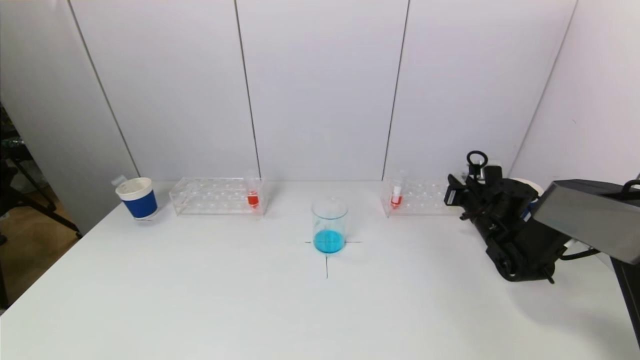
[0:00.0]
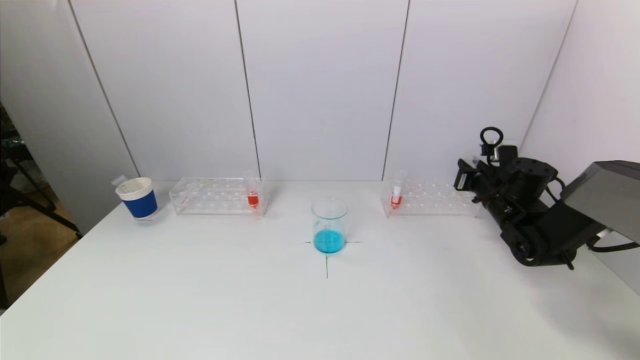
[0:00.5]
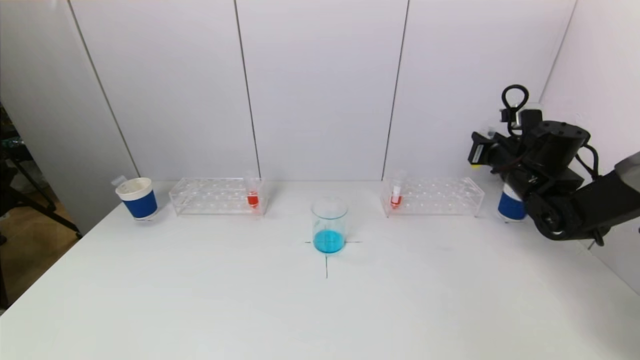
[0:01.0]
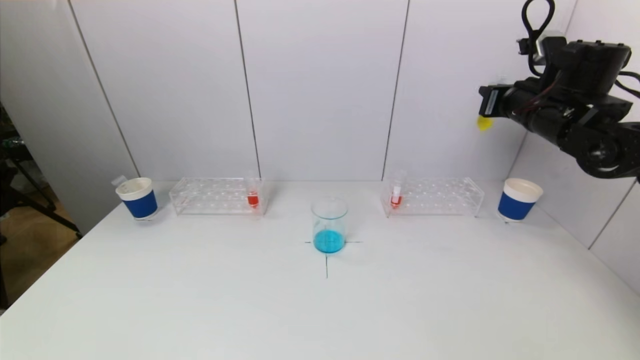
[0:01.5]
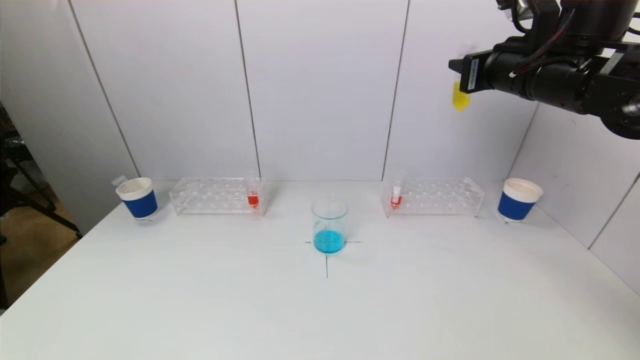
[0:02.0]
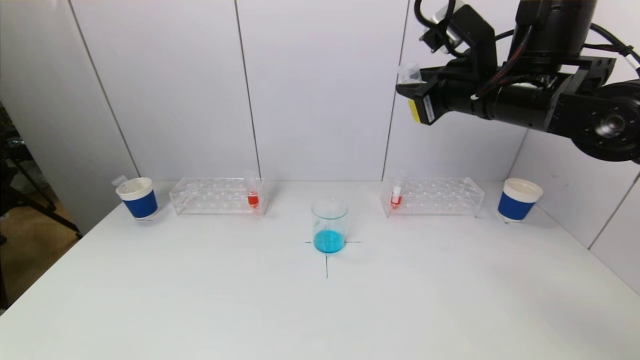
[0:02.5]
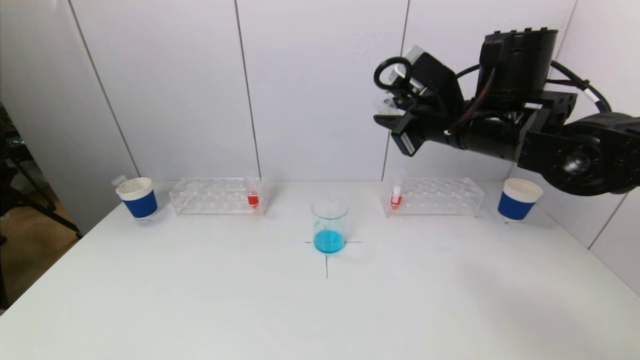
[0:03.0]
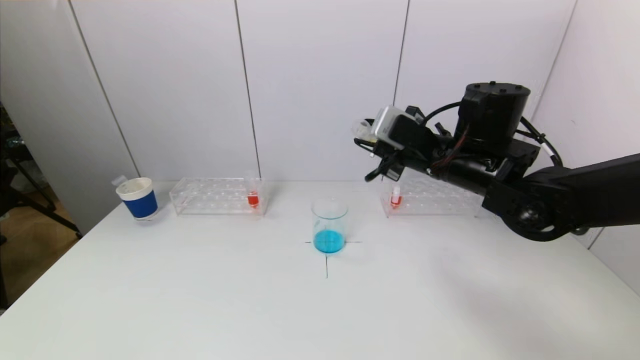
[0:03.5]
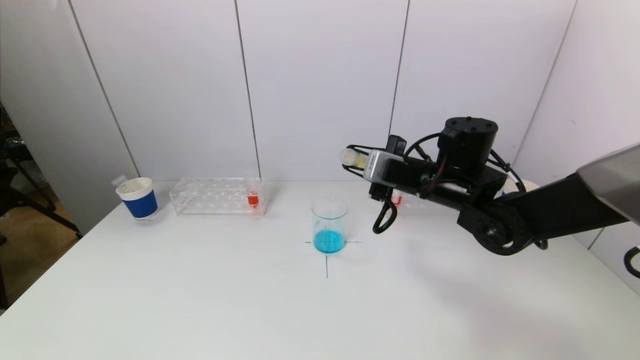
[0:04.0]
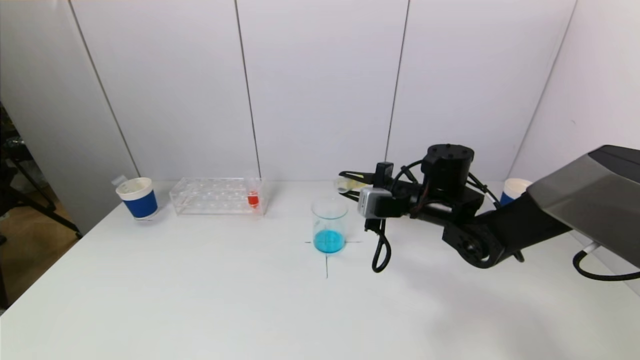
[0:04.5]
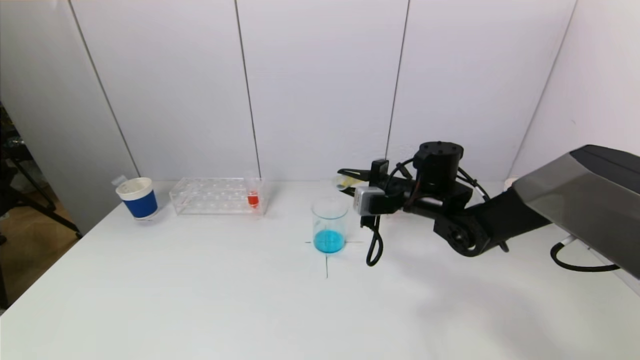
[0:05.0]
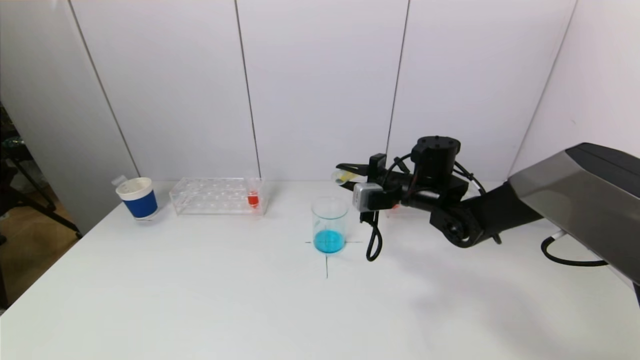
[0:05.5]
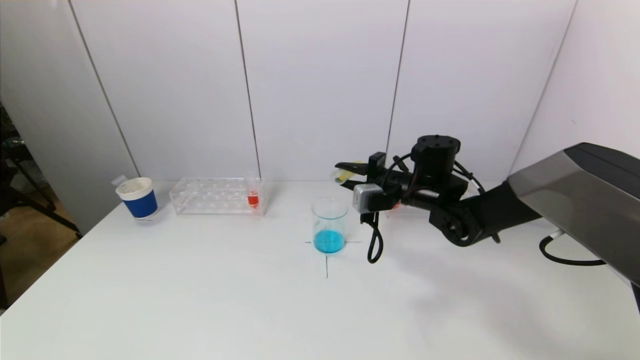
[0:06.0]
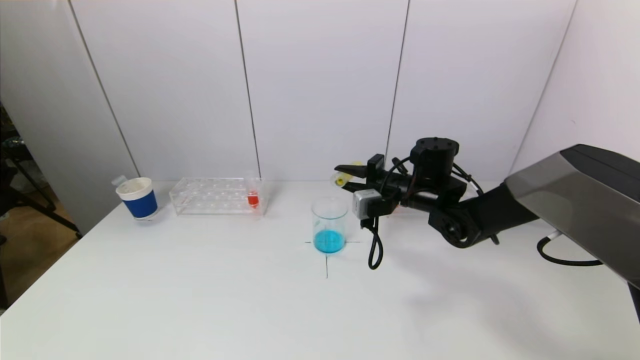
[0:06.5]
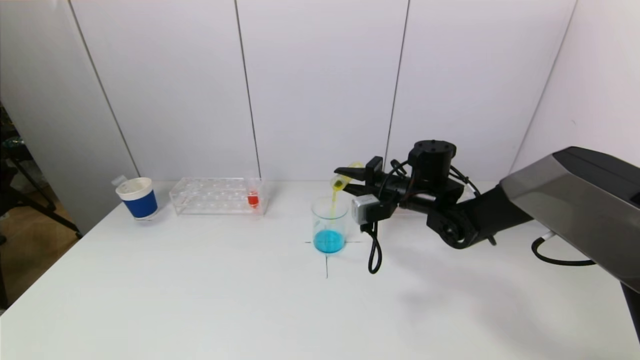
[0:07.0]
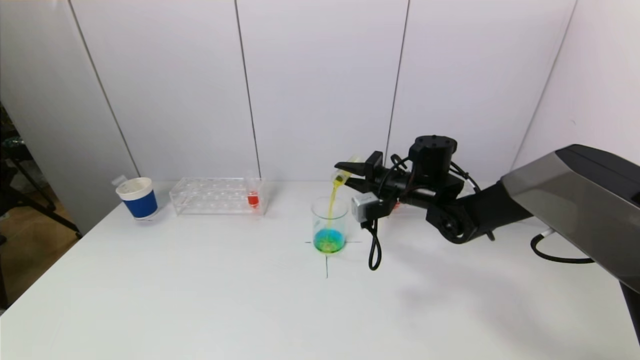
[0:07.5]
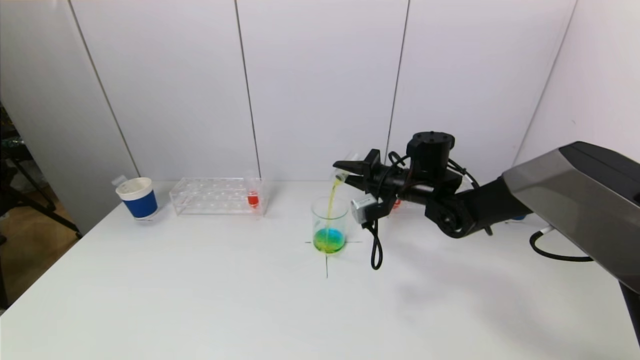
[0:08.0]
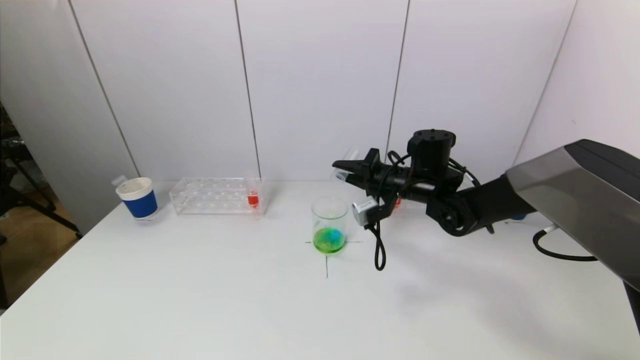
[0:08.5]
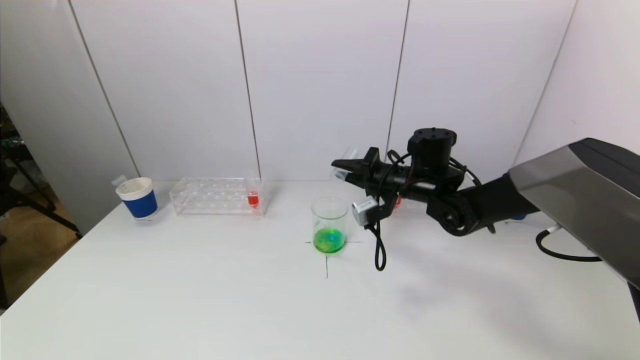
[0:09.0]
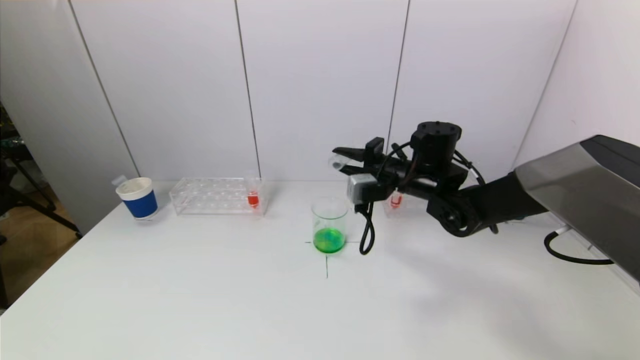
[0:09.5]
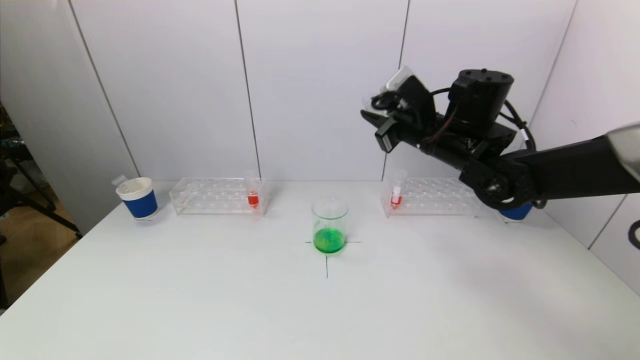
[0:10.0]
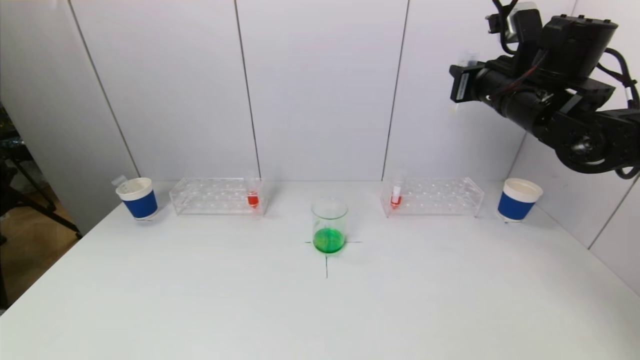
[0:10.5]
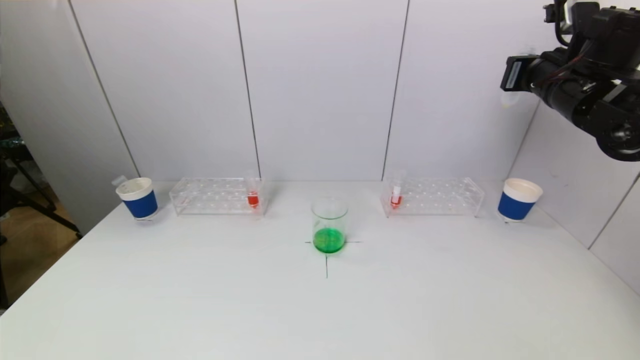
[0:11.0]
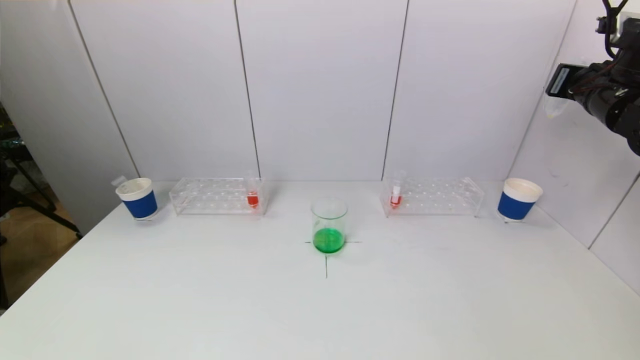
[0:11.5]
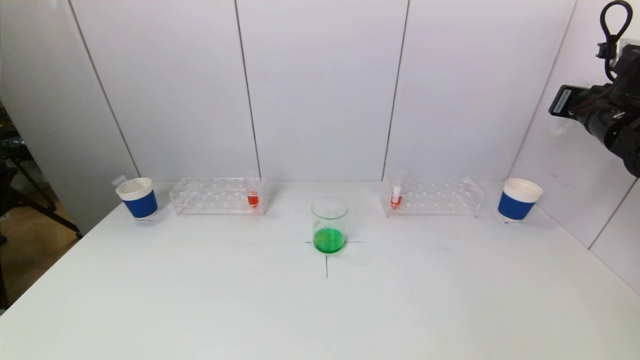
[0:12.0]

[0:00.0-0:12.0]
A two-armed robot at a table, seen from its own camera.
Task of the whole recording: pick up a test tube with pigment on left test tube rack and a test tube with pigment on right test tube rack by grippers and pour them into the beaker.
Step, 0:00.0 to 0:08.5: Pour the yellow reagent into the graduated cylinder with the right gripper.
0:00.0 to 0:02.0: The right gripper moves upward, about 30 cm.
0:02.0 to 0:04.0: The right gripper travels downward and to the left by about 20 cm.
0:04.0 to 0:06.0: The right gripper moves roughly 5 cm.
0:08.0 to 0:10.0: The right gripper shifts roughly 10 cm upward.
0:10.0 to 0:12.0: The right gripper shifts roughly 25 cm to the right.

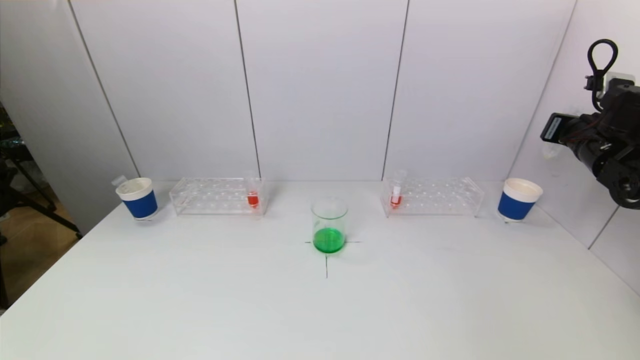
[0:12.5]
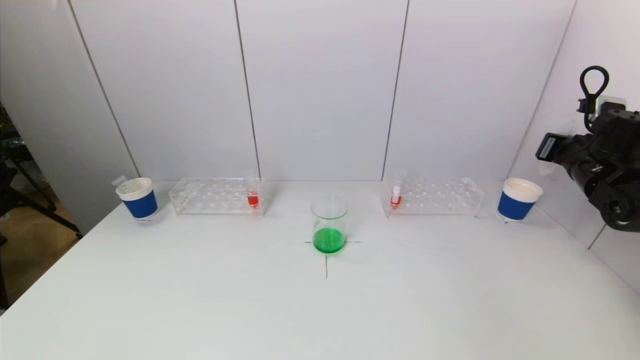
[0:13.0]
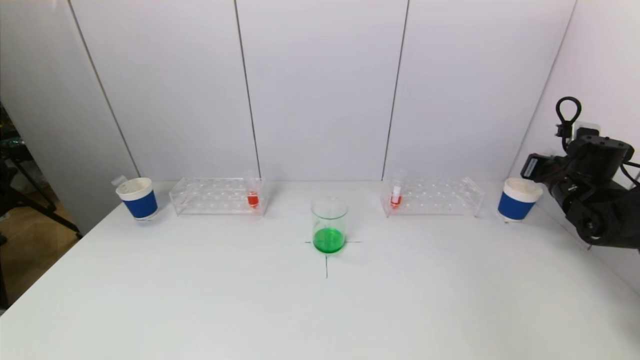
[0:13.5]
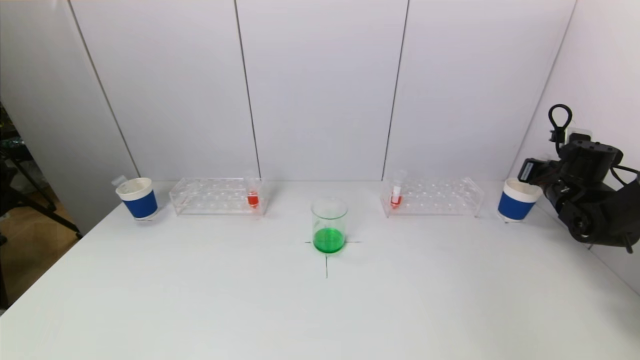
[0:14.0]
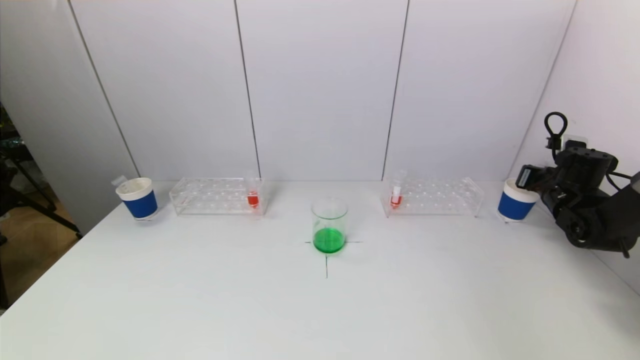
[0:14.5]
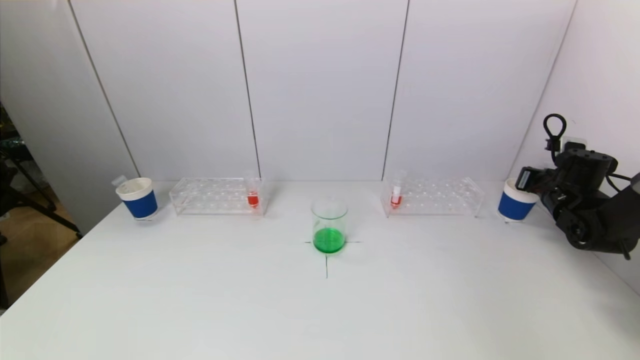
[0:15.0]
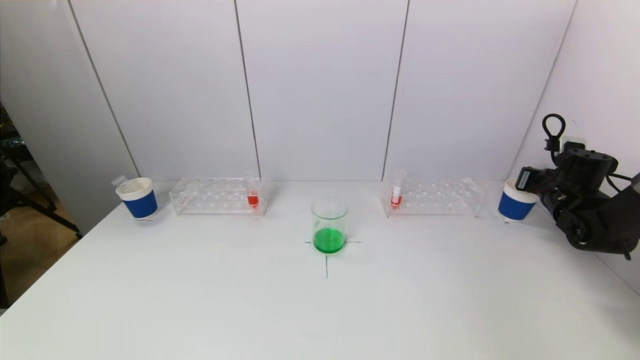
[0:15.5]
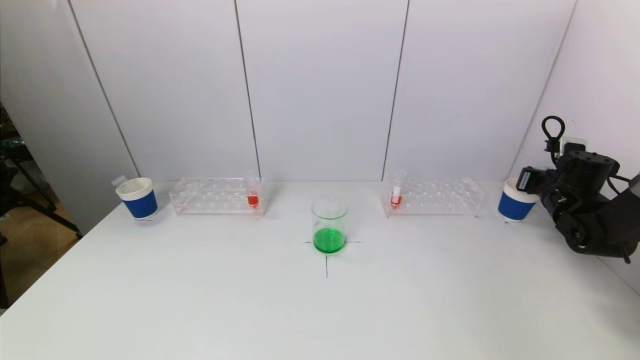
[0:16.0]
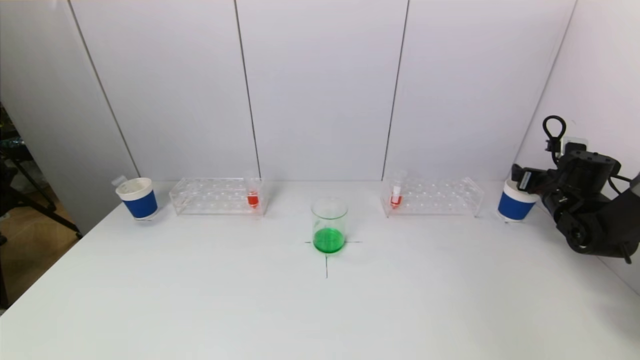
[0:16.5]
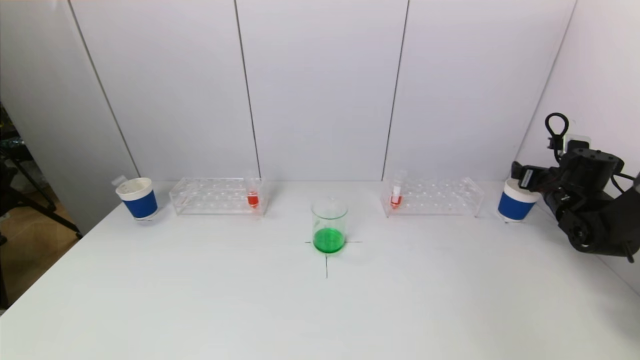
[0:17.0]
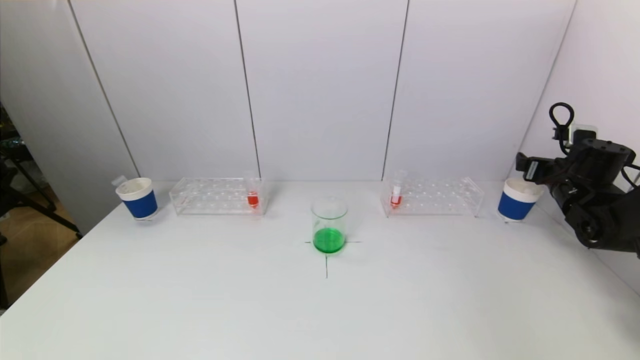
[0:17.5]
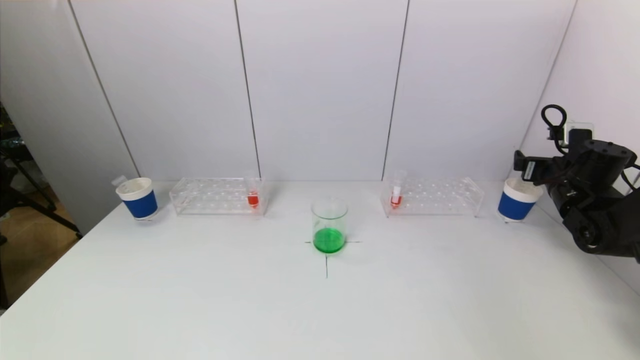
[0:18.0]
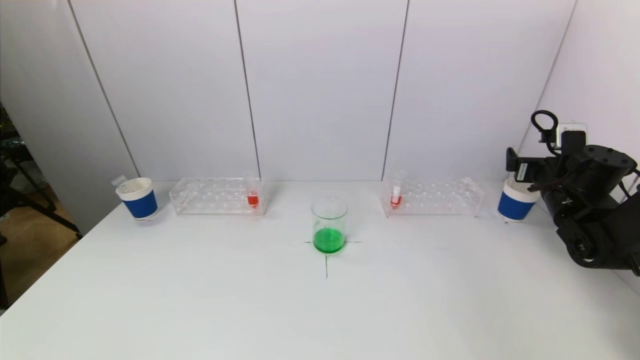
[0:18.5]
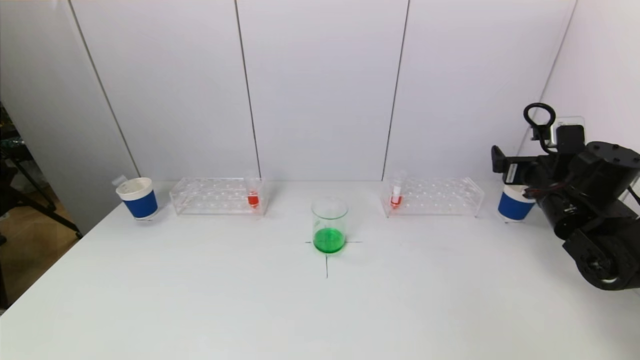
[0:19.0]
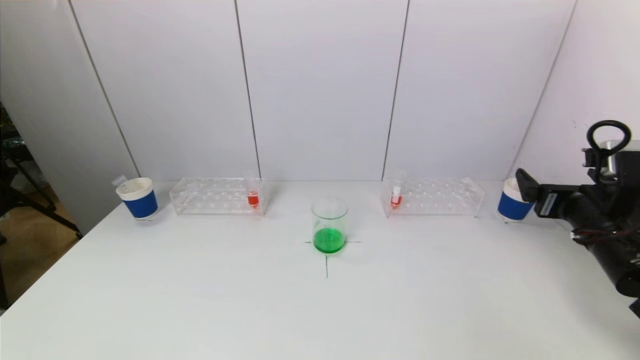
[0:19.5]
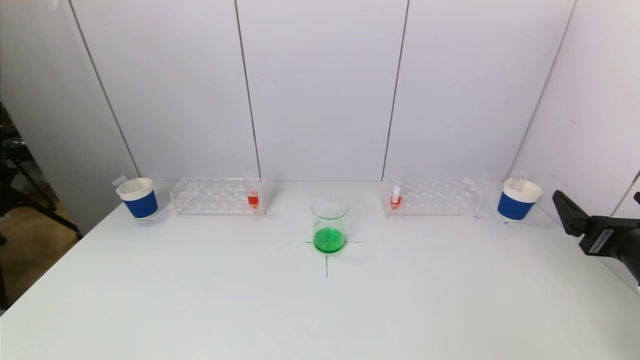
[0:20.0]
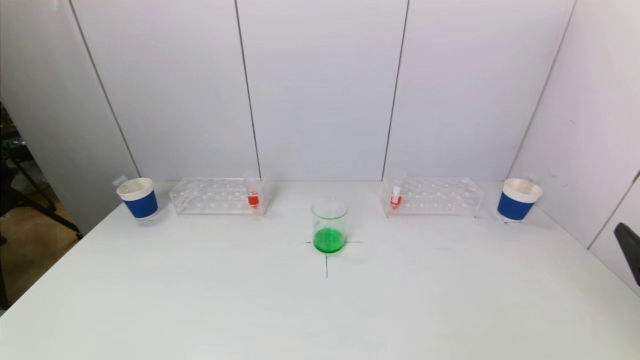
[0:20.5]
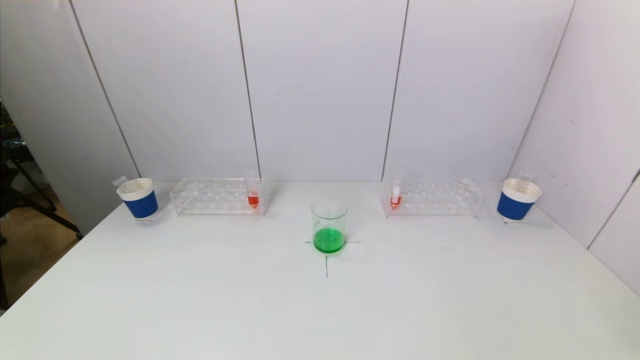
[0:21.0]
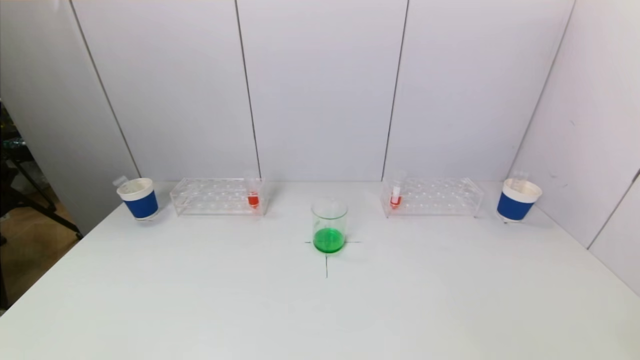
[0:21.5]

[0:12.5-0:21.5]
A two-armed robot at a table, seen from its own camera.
Task of the whole recording: pick up a test tube with pigment on left test tube rack and a test tube with pigment on right test tube rack by grippers and pour them into the beaker.
Step, 0:12.5 to 0:17.0: Place the test tube into the paper cup with the right gripper.
0:12.5 to 0:14.5: The right gripper moves downward, roughly 10 cm.
0:14.5 to 0:17.0: The right gripper opens up.
0:17.0 to 0:19.5: The right gripper travels backward and to the left by some 20 cm.
0:19.5 to 0:21.5: The right gripper heads backward, covering roughly 25 cm.
